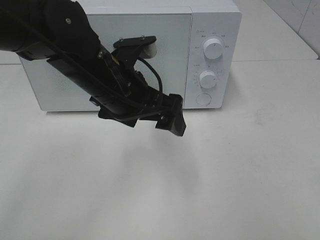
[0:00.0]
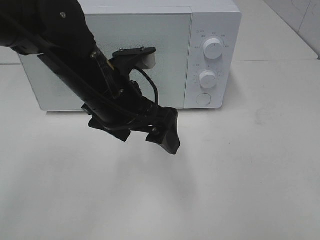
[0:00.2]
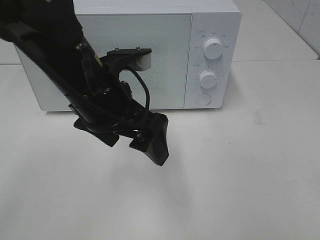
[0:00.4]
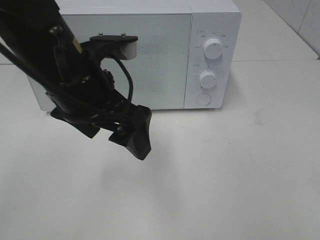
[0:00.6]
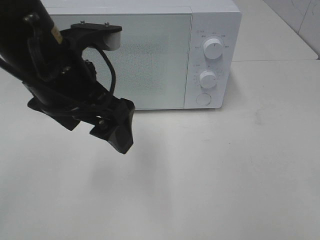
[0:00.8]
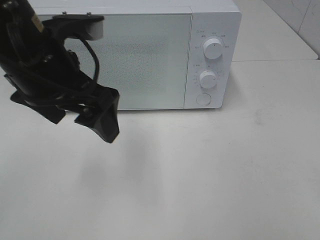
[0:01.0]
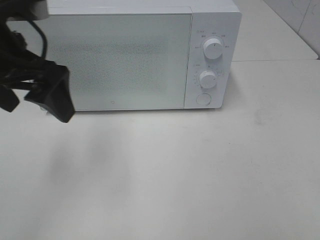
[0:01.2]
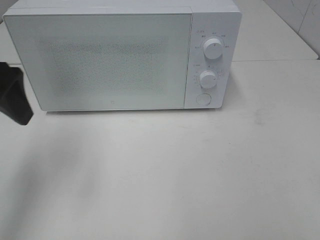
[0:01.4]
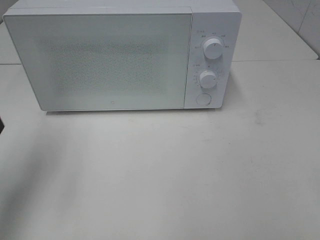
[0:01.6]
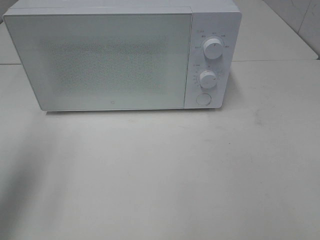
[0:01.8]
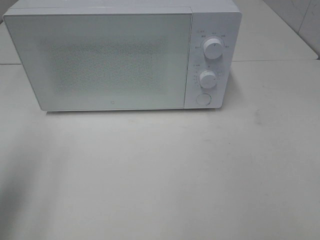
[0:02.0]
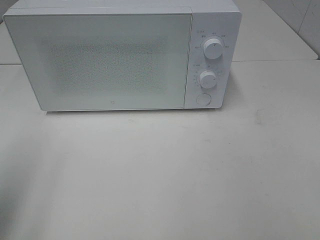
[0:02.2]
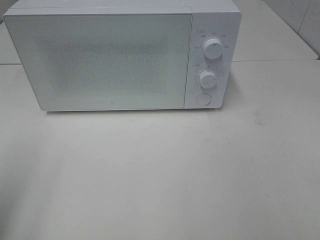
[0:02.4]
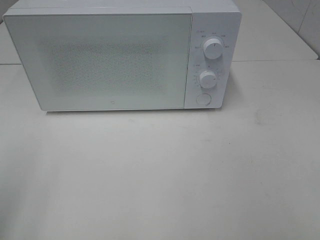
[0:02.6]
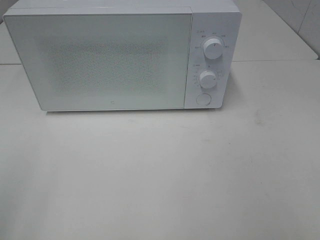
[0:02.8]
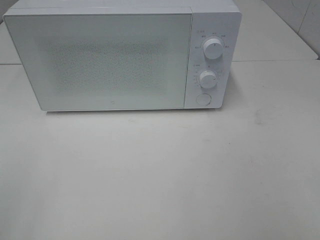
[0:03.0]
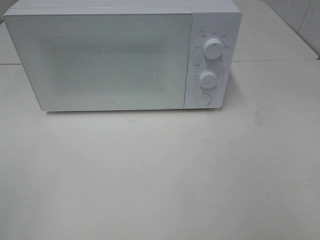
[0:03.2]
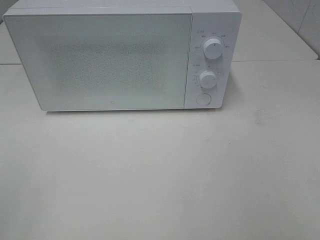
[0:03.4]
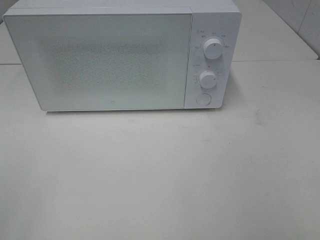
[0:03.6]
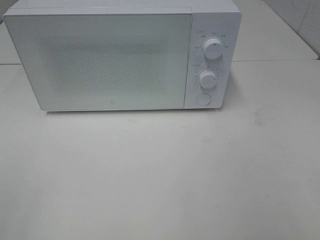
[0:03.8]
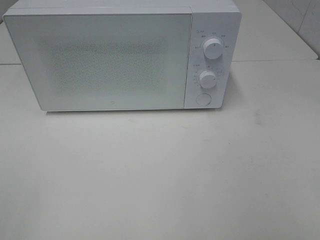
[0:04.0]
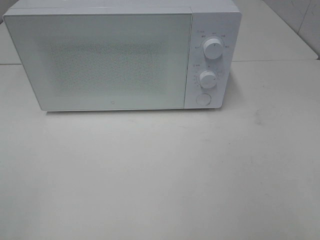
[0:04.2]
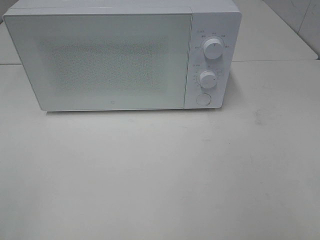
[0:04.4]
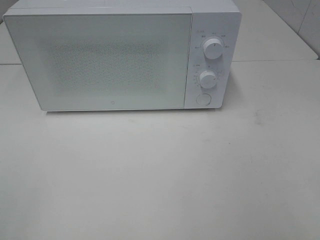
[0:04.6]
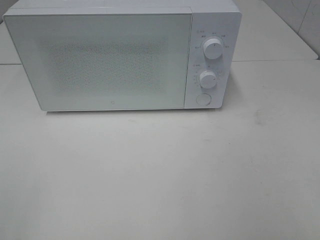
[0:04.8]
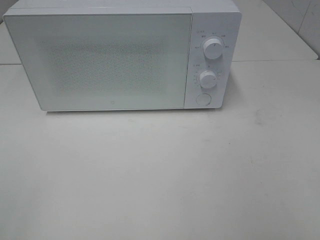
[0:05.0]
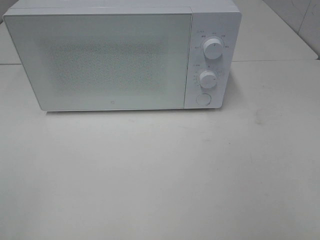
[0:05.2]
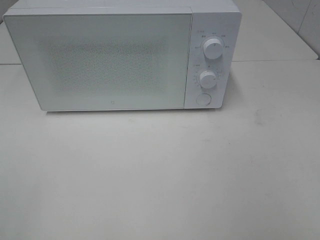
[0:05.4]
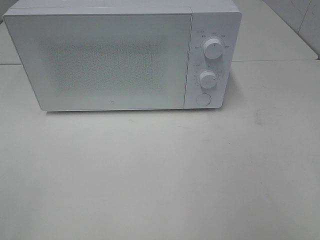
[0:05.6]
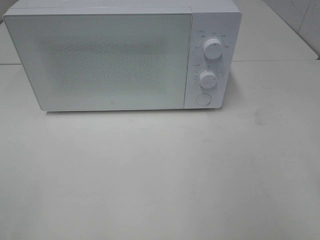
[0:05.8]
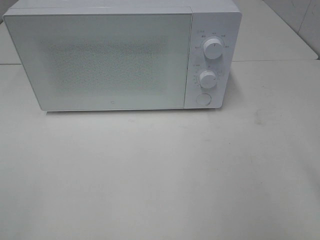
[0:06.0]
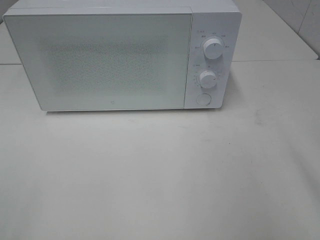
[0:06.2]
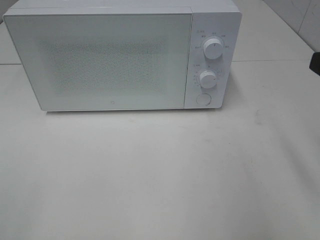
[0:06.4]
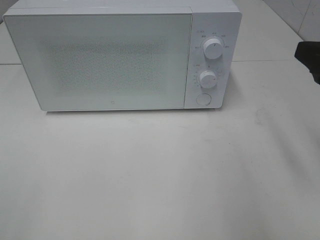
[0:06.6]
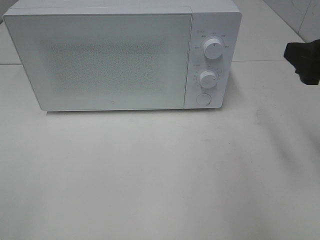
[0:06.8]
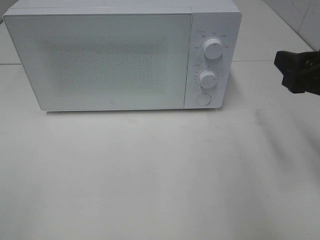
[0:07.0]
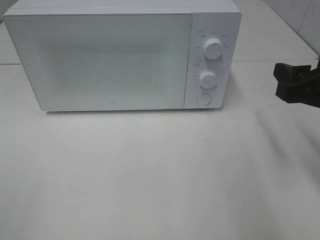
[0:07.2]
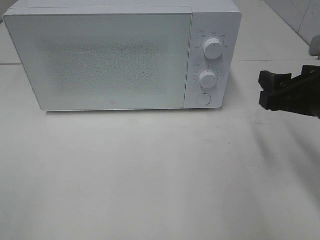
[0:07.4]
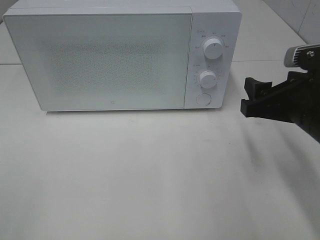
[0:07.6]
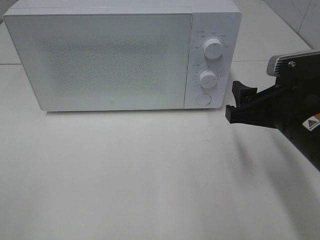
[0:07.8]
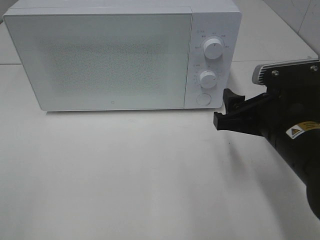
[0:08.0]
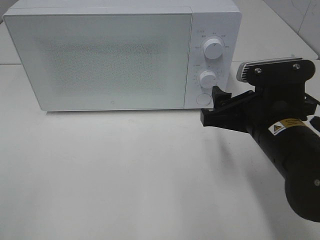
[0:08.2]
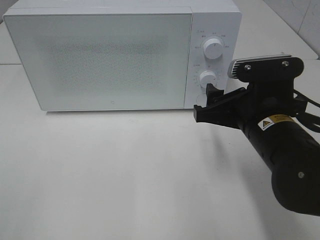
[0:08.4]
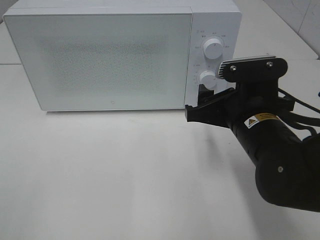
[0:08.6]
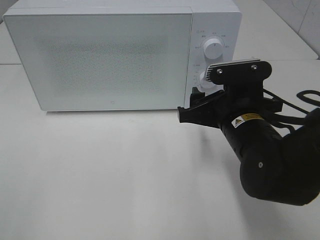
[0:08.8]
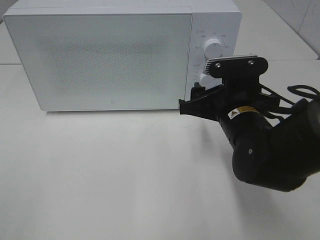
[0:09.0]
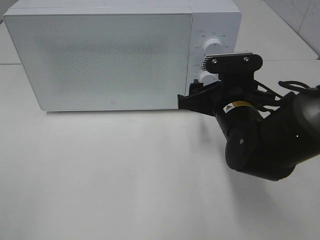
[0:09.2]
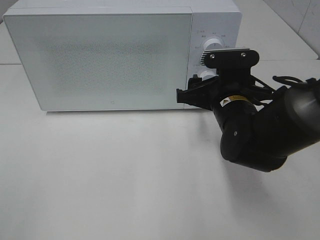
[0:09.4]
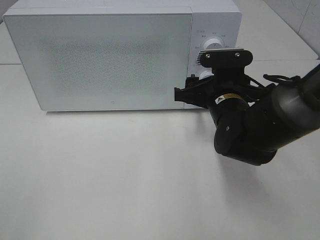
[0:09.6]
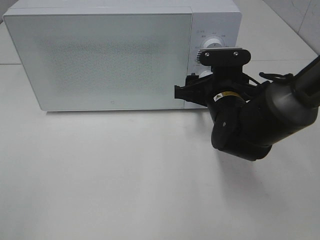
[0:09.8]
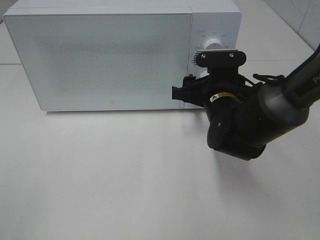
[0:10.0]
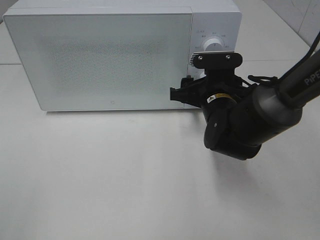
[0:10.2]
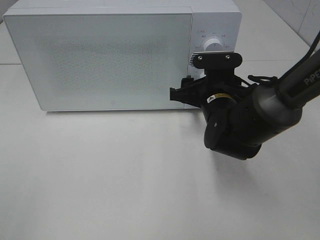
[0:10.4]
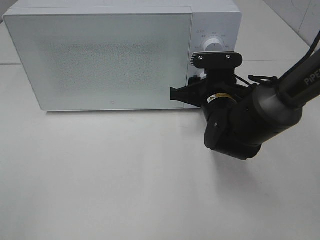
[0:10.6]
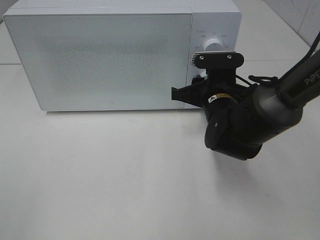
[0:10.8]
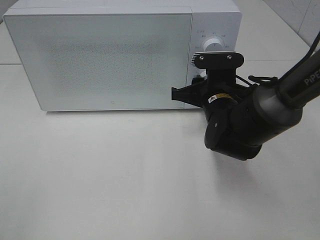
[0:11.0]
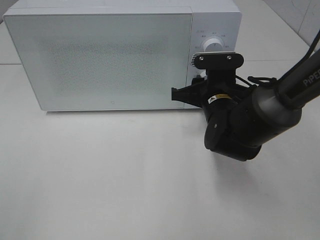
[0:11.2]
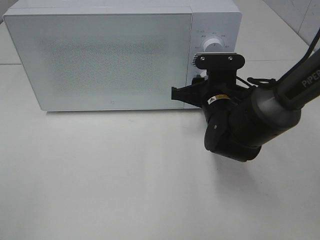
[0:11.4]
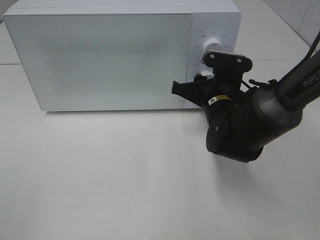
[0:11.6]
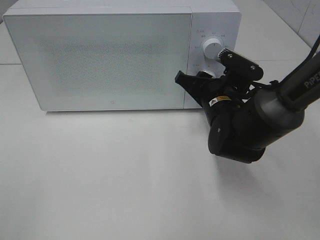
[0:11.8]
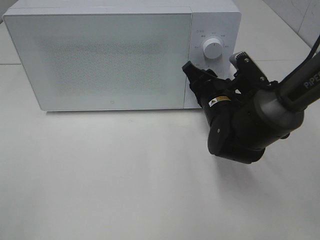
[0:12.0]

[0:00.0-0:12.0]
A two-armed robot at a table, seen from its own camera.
Task of the whole recording: Heat the burger.
0:00.0 to 0:01.6: The left gripper goes roughly 20 cm to the left.
0:01.6 to 0:03.0: The left gripper goes roughly 20 cm backward.
0:06.0 to 0:07.6: The right gripper goes about 15 cm forward, downward and to the left.
0:07.6 to 0:09.0: The right gripper shifts some 10 cm to the left.
0:09.0 to 0:10.4: The right gripper shifts approximately 5 cm forward.

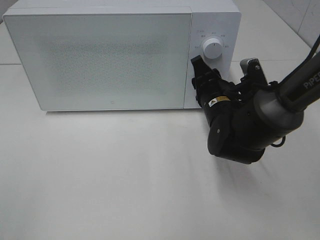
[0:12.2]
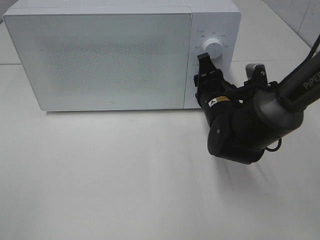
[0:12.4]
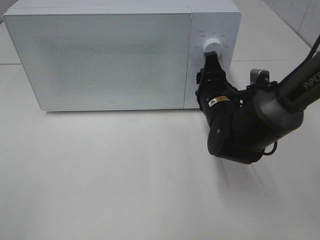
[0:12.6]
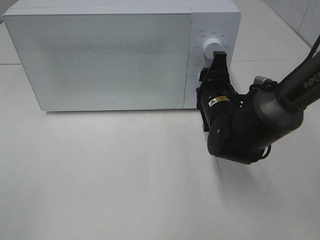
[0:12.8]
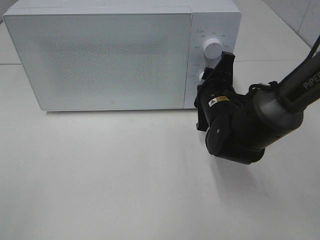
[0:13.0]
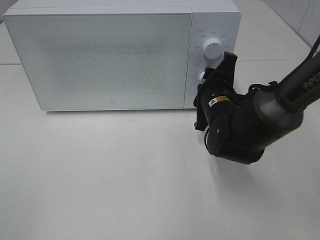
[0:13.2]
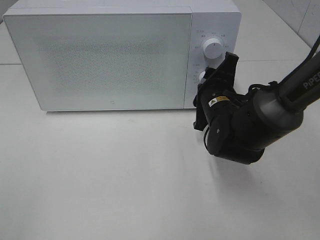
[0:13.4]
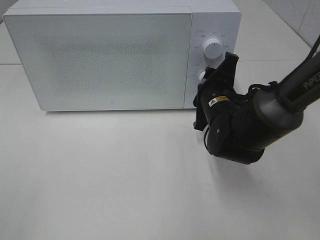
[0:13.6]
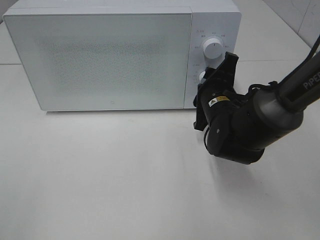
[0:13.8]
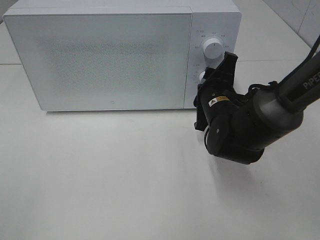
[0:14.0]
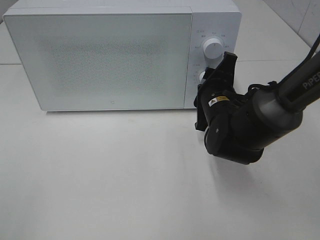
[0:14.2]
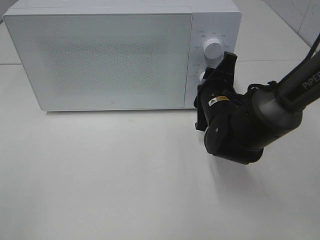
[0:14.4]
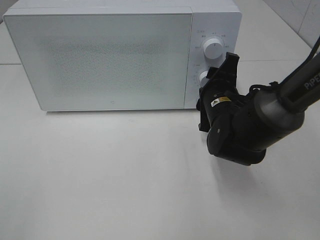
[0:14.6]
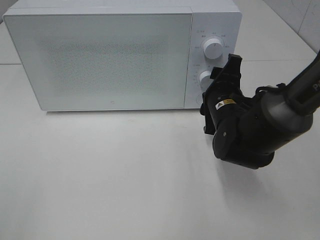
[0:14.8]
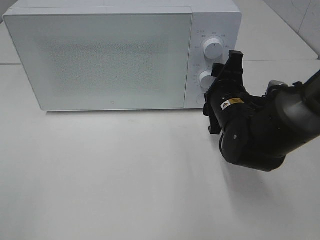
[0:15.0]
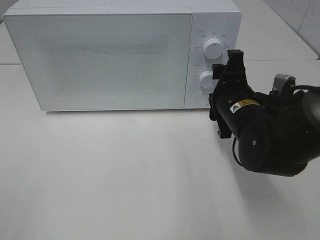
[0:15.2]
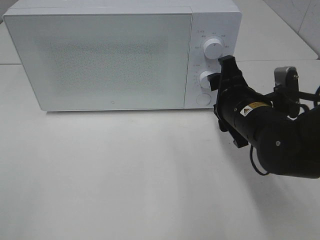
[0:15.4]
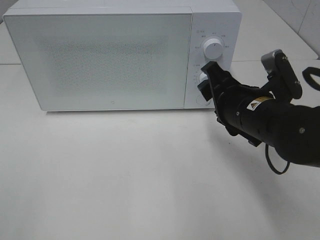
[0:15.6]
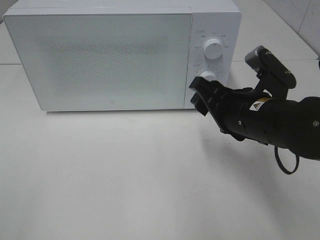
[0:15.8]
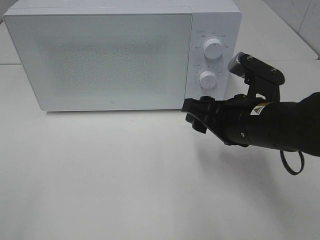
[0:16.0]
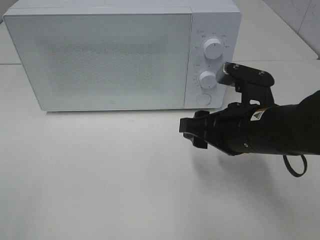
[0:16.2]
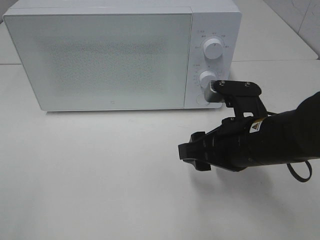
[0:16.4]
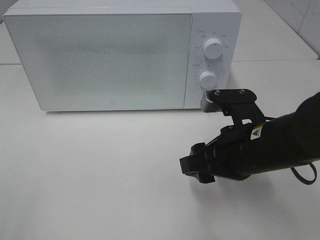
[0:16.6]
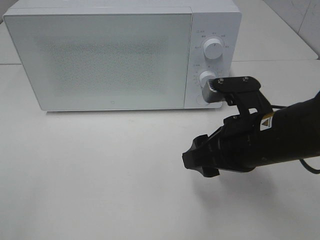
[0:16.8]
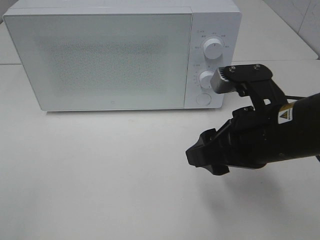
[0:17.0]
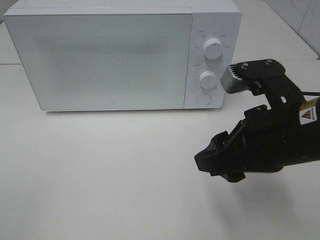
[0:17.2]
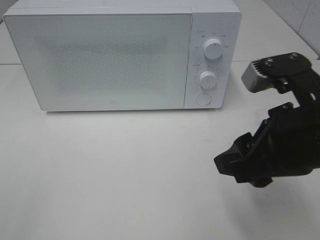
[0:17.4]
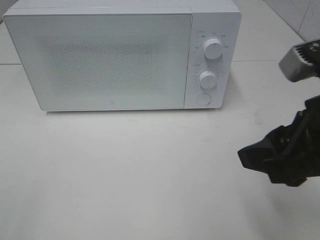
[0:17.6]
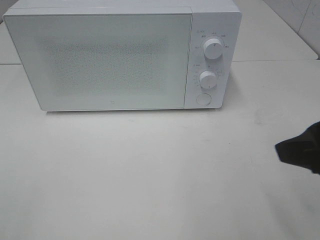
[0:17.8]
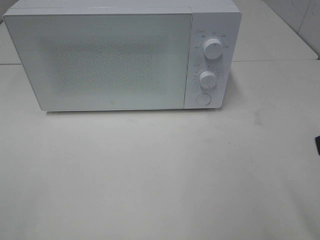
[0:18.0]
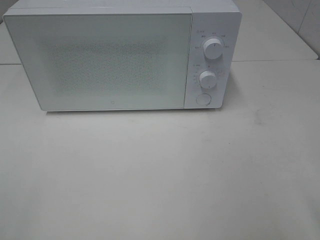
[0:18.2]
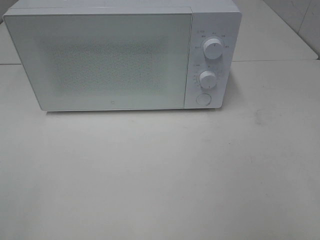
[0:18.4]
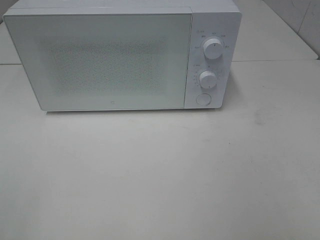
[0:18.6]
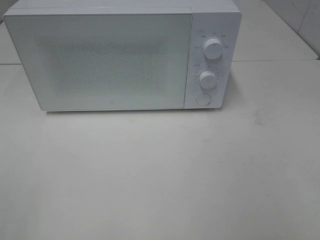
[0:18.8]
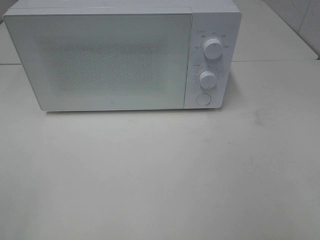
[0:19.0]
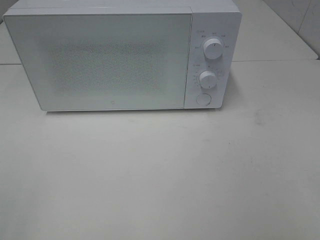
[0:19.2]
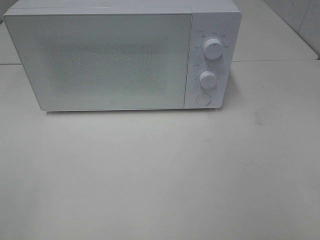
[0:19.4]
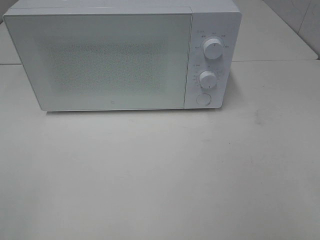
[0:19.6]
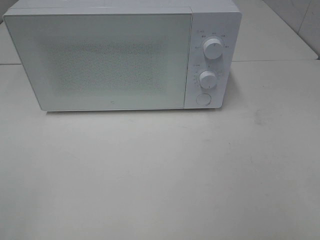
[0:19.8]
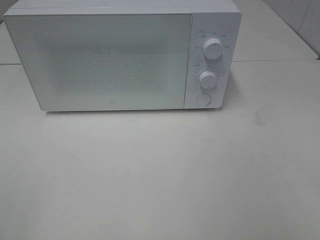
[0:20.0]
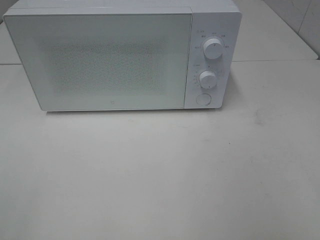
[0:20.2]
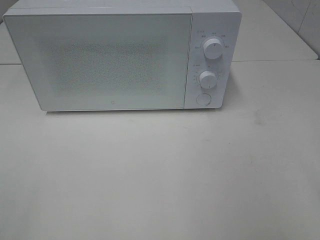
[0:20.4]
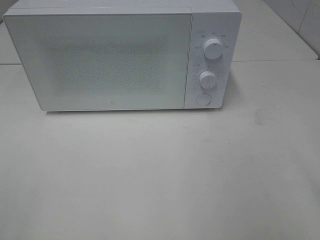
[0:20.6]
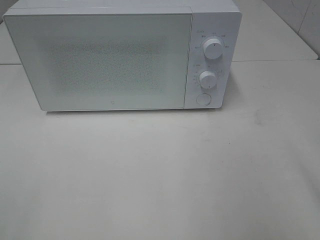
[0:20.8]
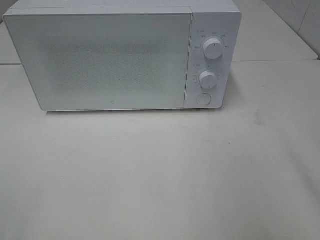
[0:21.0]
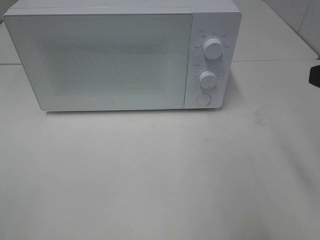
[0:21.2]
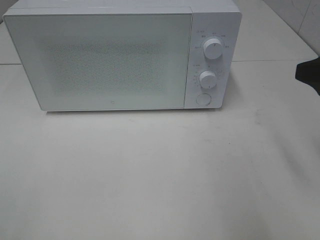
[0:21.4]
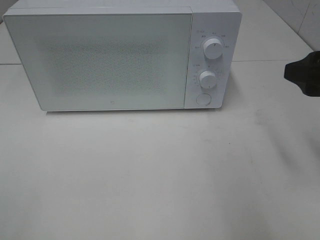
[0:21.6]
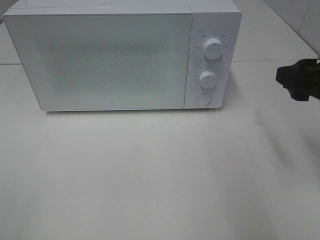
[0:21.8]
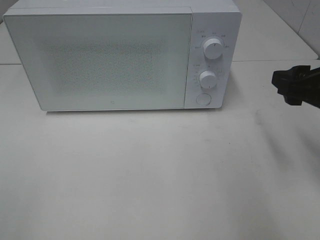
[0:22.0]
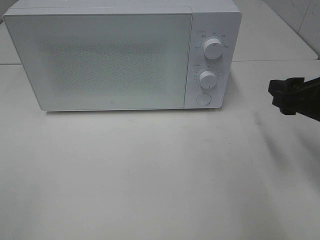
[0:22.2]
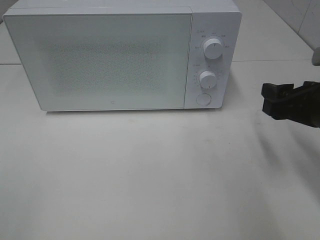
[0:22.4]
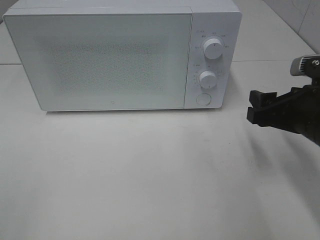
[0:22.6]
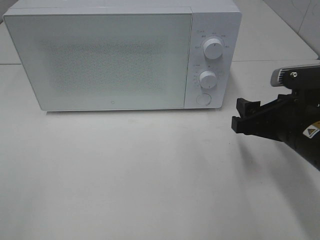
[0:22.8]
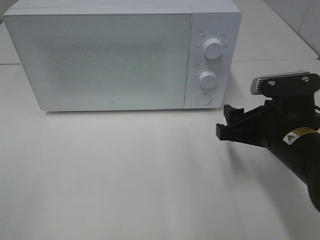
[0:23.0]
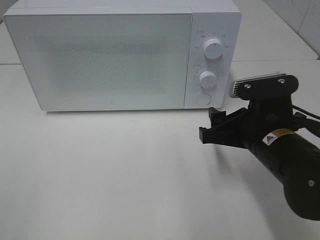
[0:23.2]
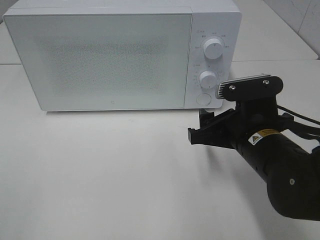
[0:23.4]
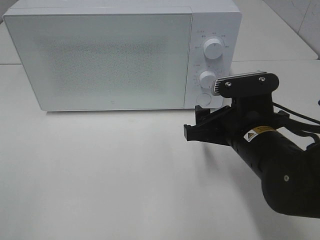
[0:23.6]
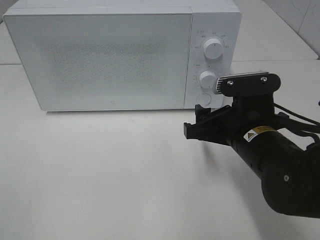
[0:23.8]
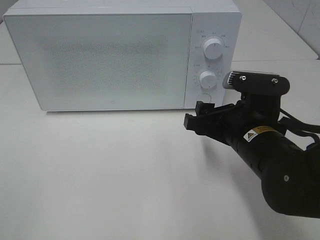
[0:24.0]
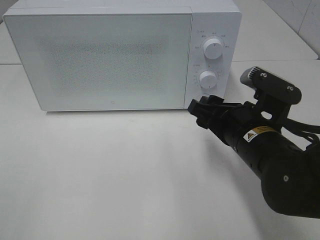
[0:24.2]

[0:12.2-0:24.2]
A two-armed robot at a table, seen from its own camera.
Task of the whole recording: Heat the burger.
Step, 0:12.2 to 0:14.6: Right hand: twist timer button.
0:13.8 to 0:15.2: The right gripper changes place by some 5 cm.
0:15.2 to 0:16.6: The right gripper shifts roughly 10 cm backward.
0:16.6 to 0:18.2: The right gripper travels upward, to the right and backward by about 20 cm.
0:21.2 to 0:22.6: The right gripper moves downward and forward, about 15 cm.
0:22.6 to 0:24.2: The right gripper goes approximately 10 cm to the left.
